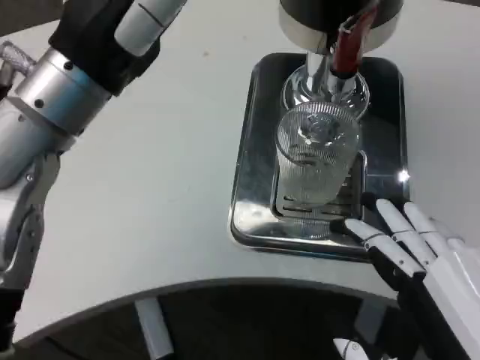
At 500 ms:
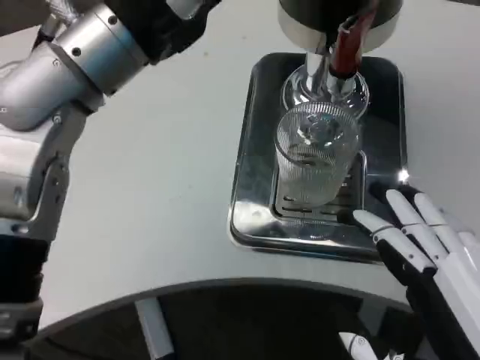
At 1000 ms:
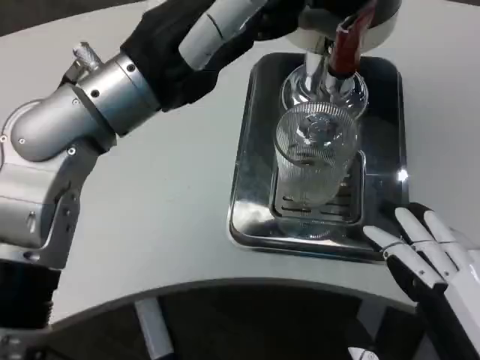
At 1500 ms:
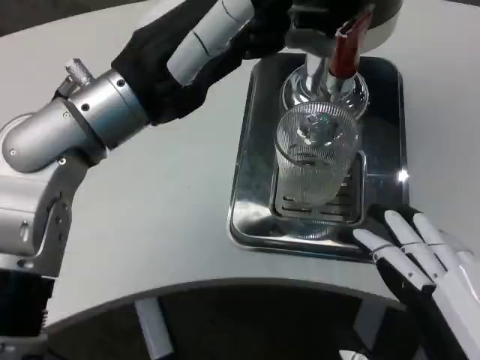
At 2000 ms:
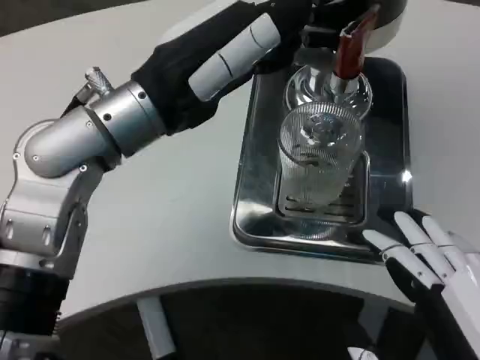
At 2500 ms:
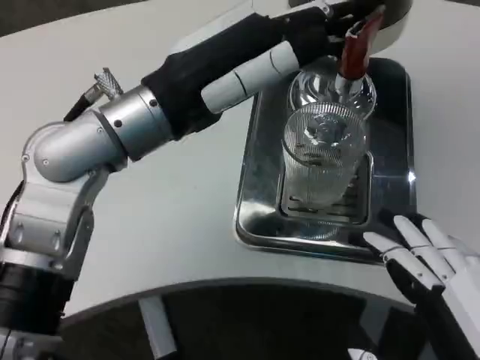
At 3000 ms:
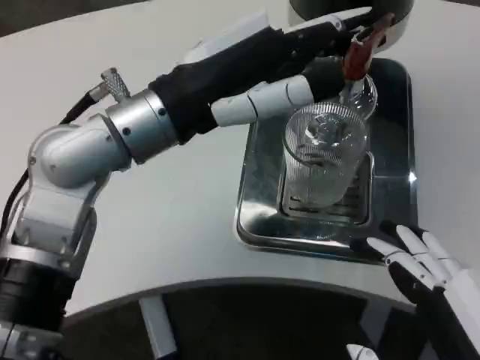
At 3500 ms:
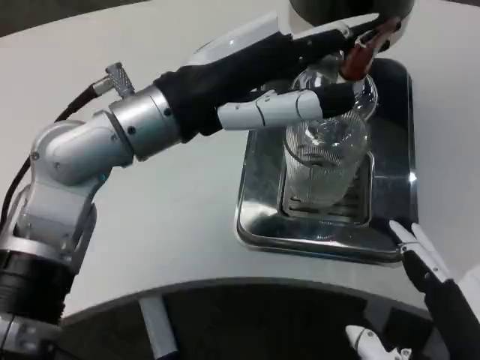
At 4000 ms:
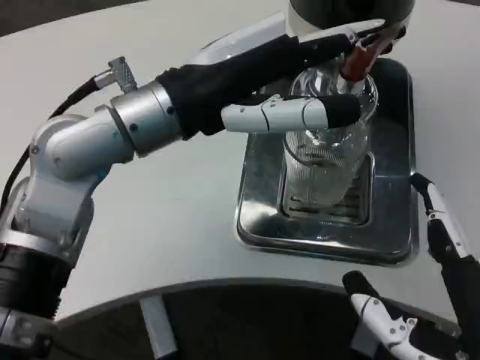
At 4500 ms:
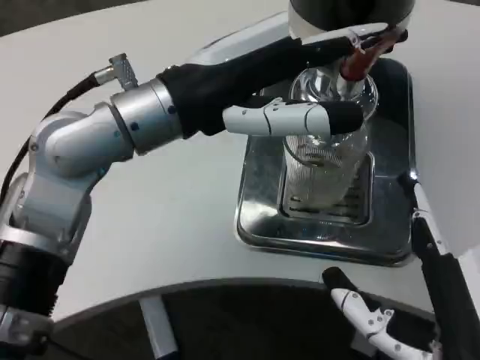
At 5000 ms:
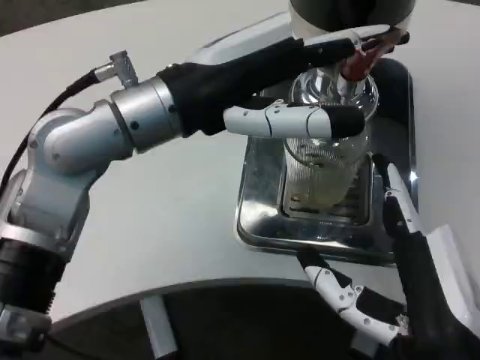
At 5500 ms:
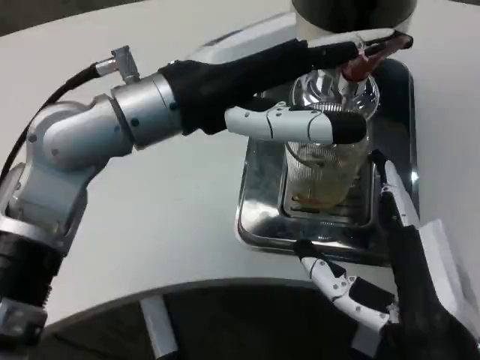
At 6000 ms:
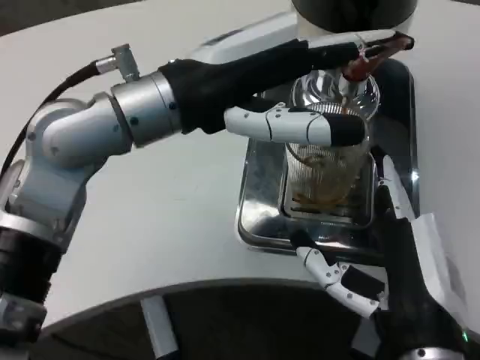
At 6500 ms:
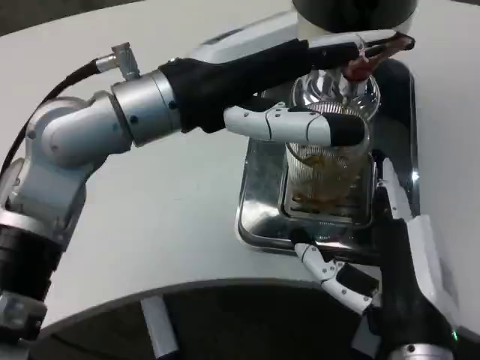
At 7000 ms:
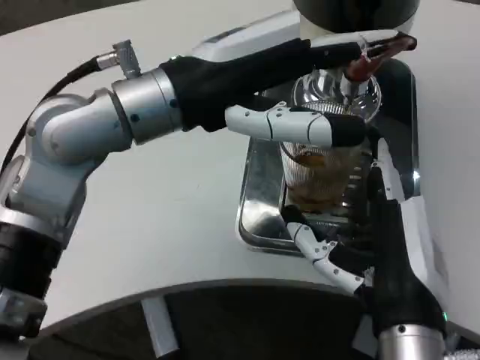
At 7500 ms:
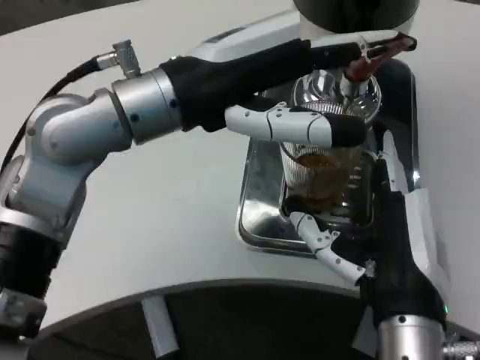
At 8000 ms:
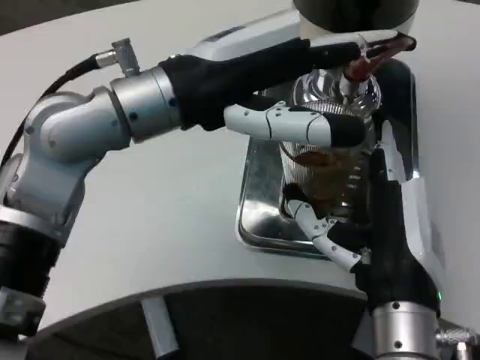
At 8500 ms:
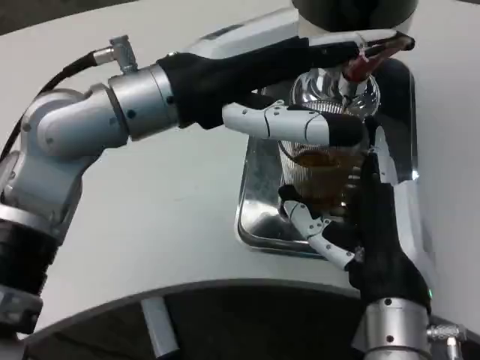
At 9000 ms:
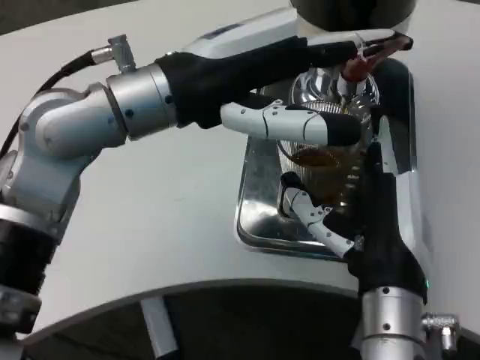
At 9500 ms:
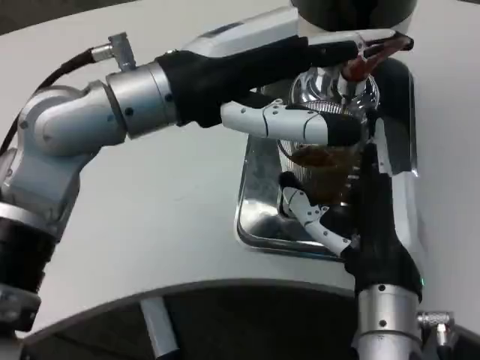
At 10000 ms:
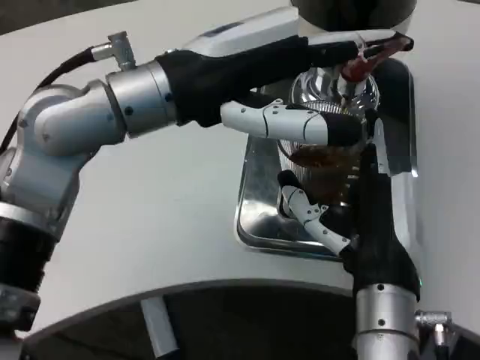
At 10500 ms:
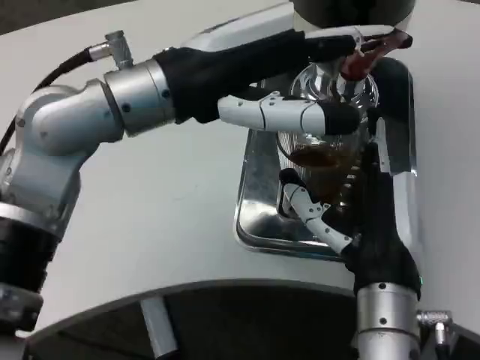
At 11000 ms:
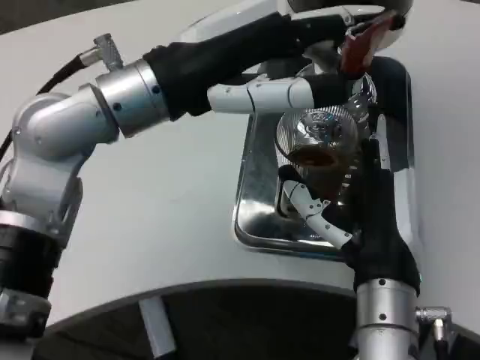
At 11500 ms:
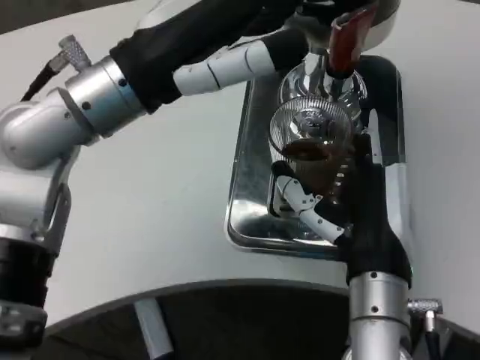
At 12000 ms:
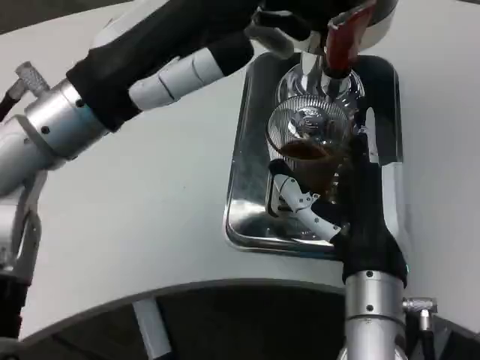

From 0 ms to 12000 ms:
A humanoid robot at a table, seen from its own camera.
Task of the whole recording: Grasp the cup under the faucet to collect the drink, then remove the cup.
From 4000 ms to 6000 ms: The right hand is displaced forward by about 5 cm.
From 10000 ms to 12000 ms: The left hand shifts approximately 5 cm to the left.

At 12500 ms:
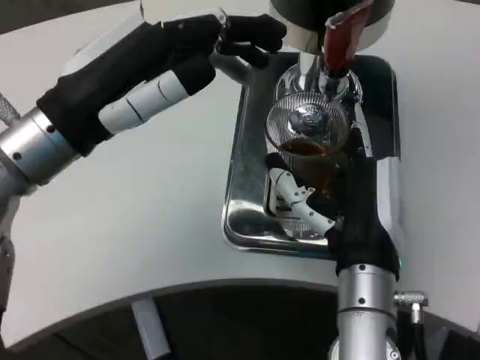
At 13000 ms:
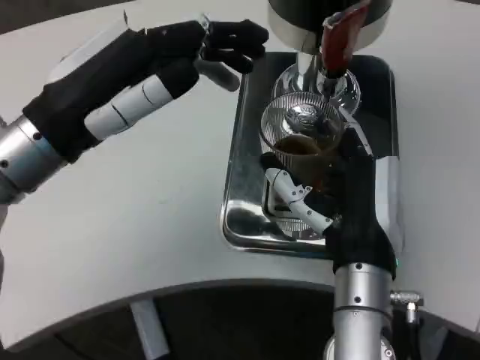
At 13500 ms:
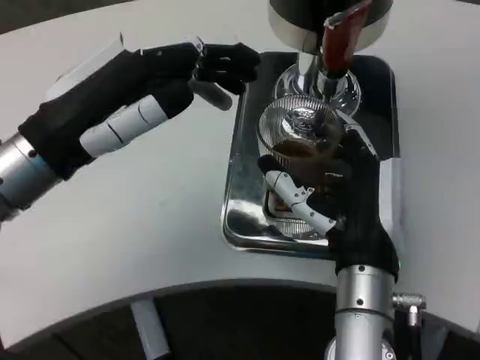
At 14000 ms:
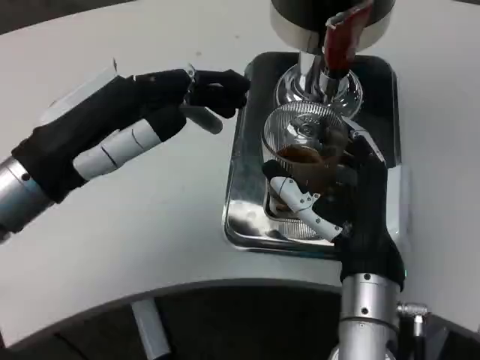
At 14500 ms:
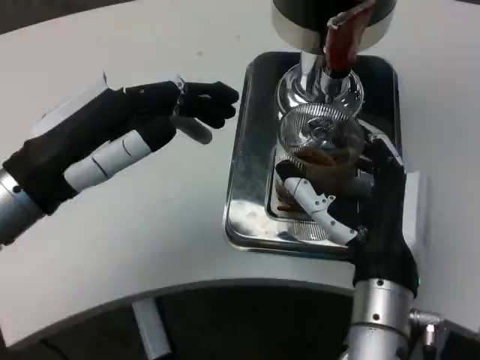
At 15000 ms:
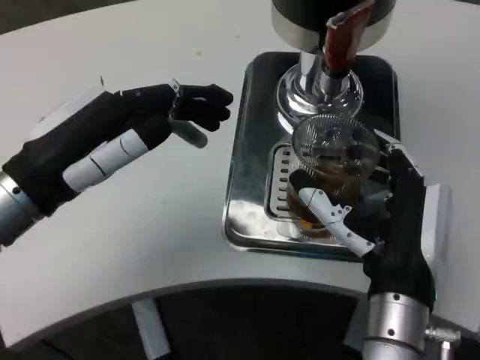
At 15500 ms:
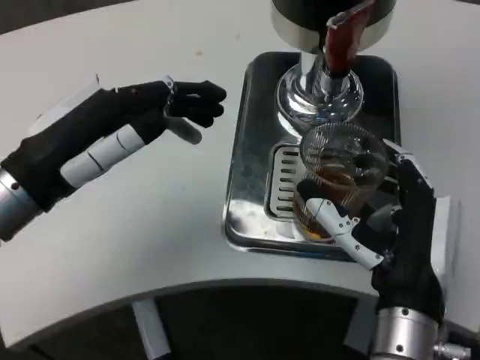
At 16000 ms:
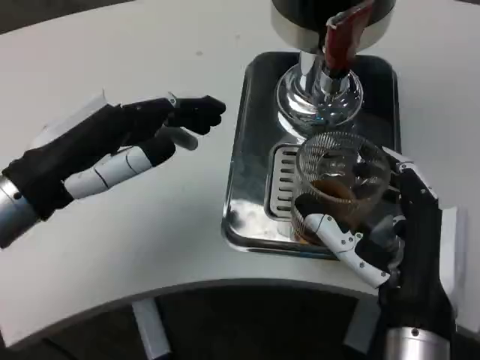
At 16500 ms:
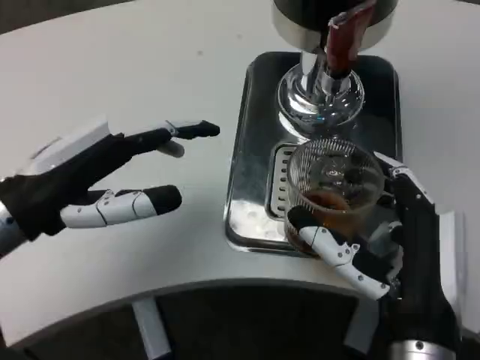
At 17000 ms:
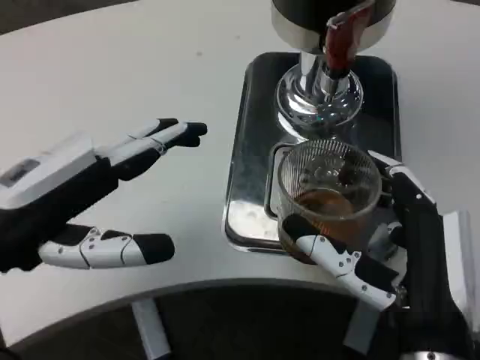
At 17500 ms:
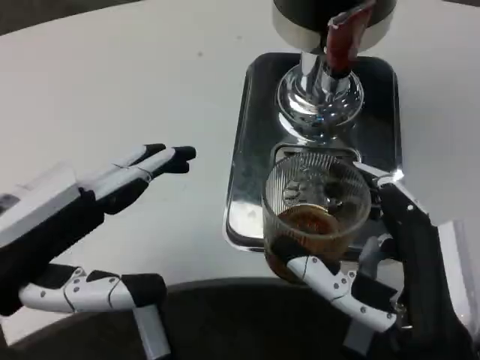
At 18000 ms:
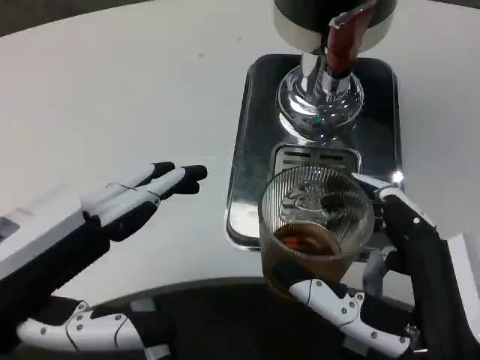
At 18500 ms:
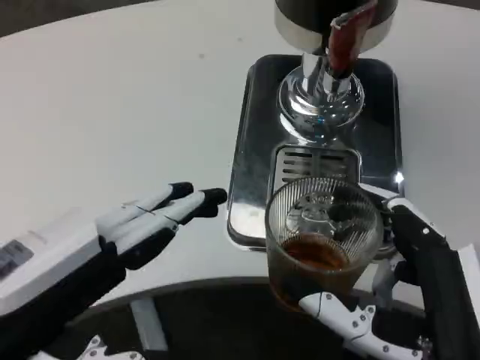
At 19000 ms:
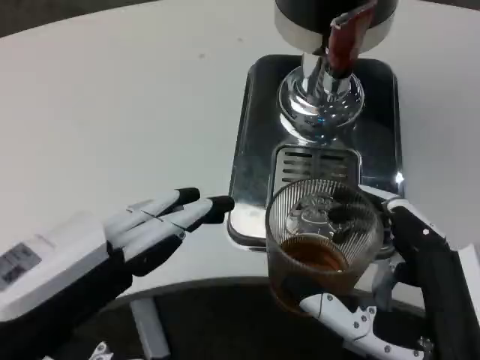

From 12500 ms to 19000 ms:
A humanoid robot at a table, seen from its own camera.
Task of the whole recording: Grasp the cup under the faucet to collect the drink, then remove the cup.
From 12500 ms to 14500 ms: The left hand changes place by about 5 cm.
From 14500 ms to 17000 ms: The left hand shifts by roughly 5 cm, while the right hand goes some 5 cm backward.
From 17000 ms to 19000 ms: The right hand shifts by approximately 5 cm; the left hand is displaced backward by roughly 10 cm.

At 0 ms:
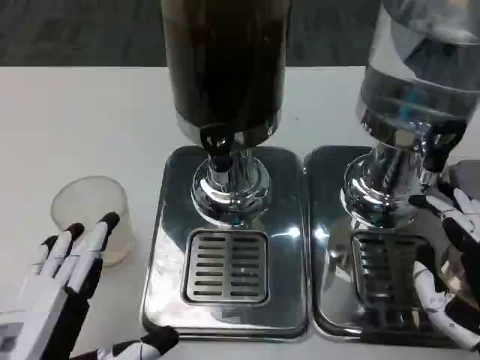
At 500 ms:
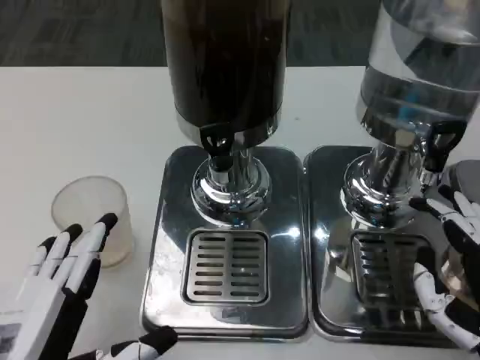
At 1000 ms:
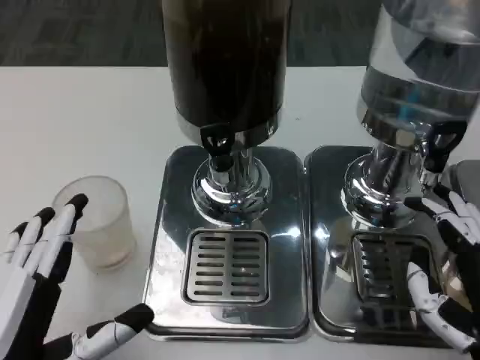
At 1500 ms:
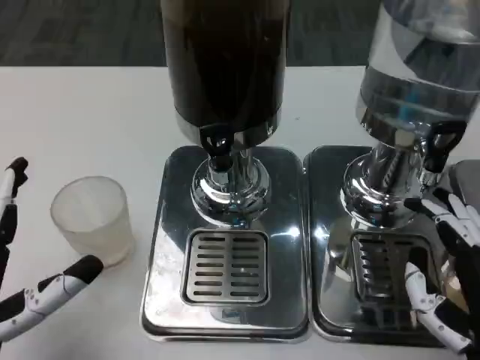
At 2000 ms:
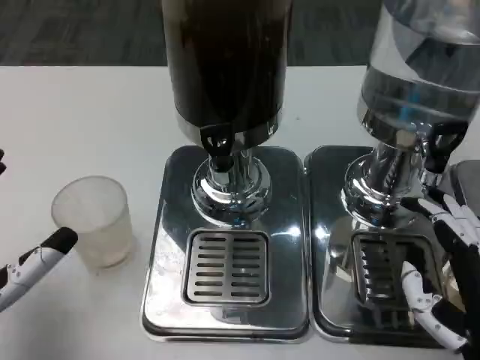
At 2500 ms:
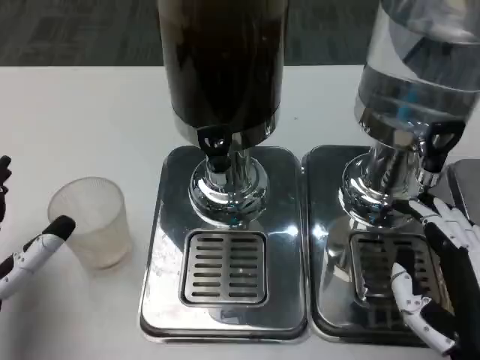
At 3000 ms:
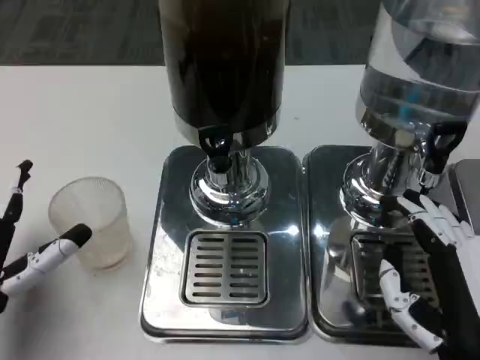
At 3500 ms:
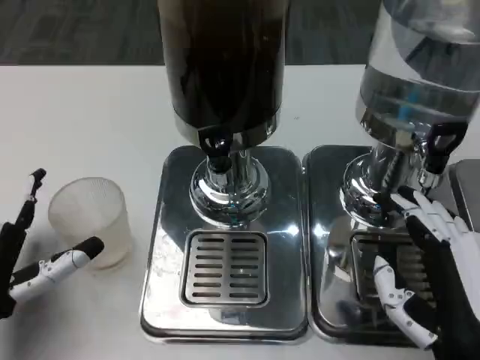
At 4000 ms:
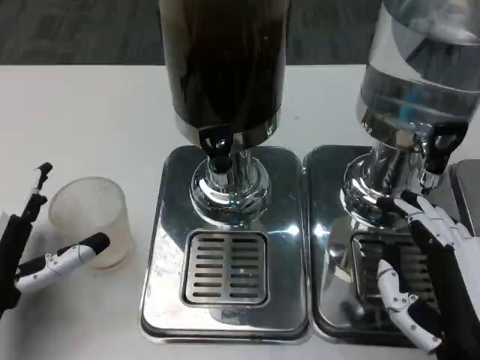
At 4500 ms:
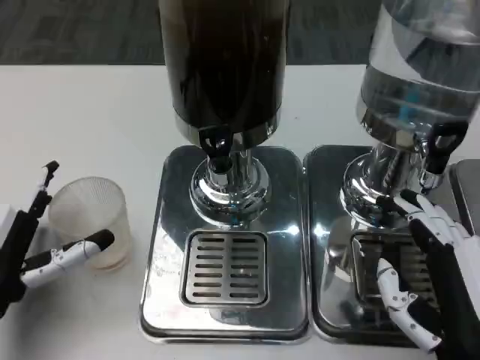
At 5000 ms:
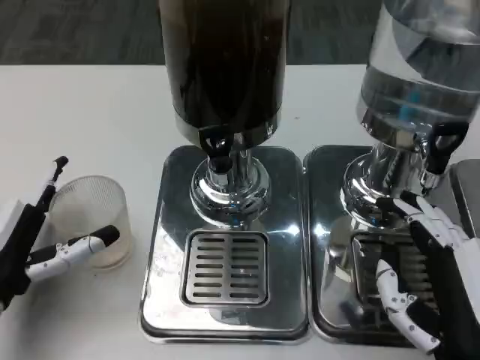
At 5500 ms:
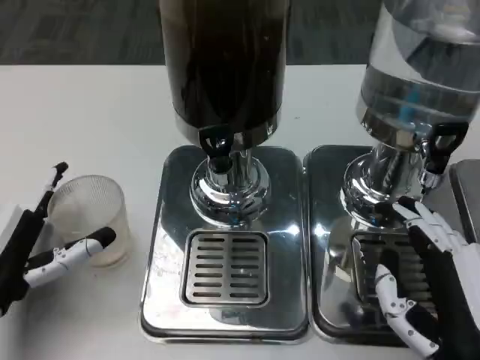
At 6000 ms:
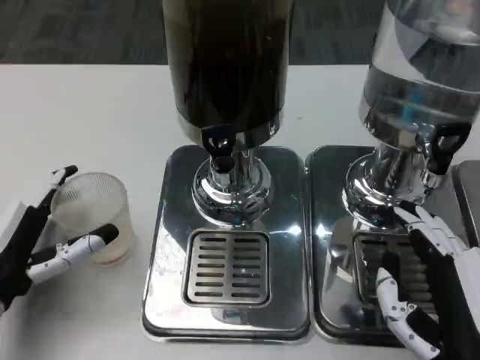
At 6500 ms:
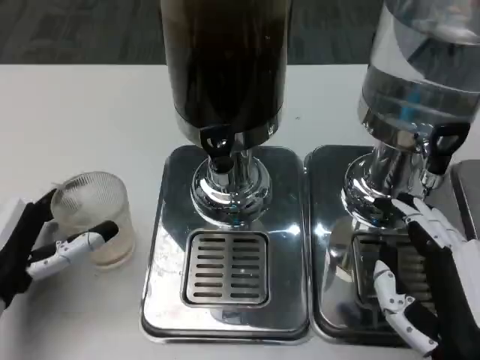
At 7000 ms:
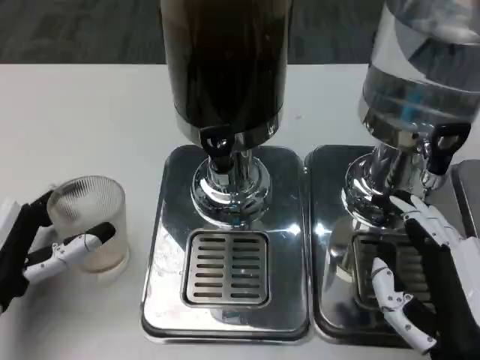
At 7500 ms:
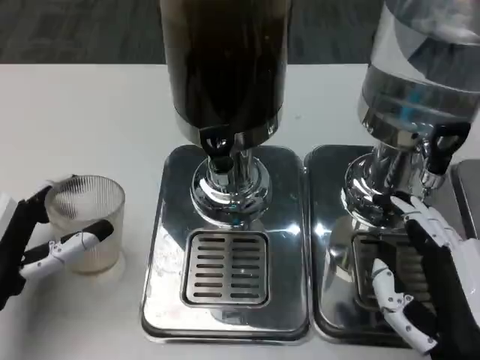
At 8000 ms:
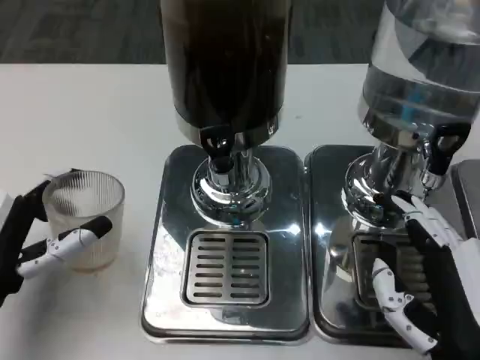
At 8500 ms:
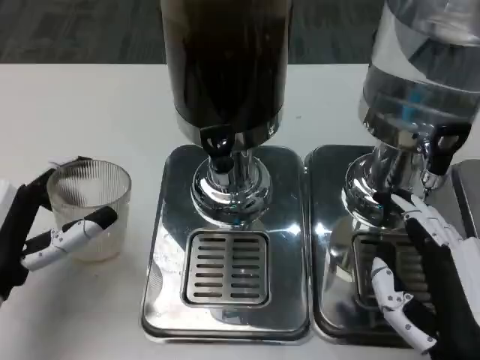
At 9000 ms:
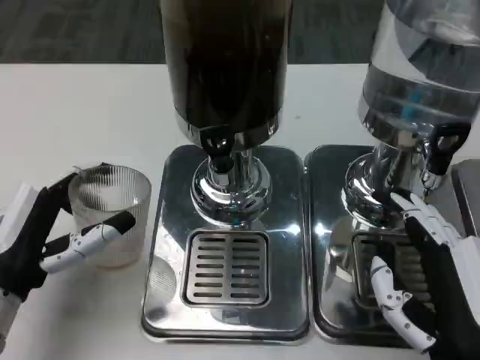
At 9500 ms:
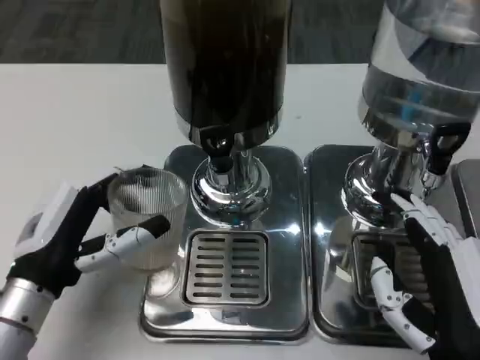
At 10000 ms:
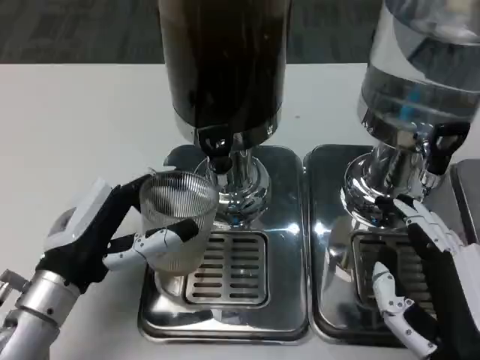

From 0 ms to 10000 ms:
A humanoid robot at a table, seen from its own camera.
Task of the whole recording: Grasp the cup under the faucet to collect the drink, then remove the cup.
From 0 ms to 2000 ms: The left hand shifts about 10 cm forward and to the left.
From 2000 ms to 4000 ms: The left hand ends up roughly 5 cm from where it was.
From 4000 ms to 8000 ms: There are only small adjustments of the hands.
From 8000 ms to 10000 ms: The left hand shifts about 5 cm to the right.
